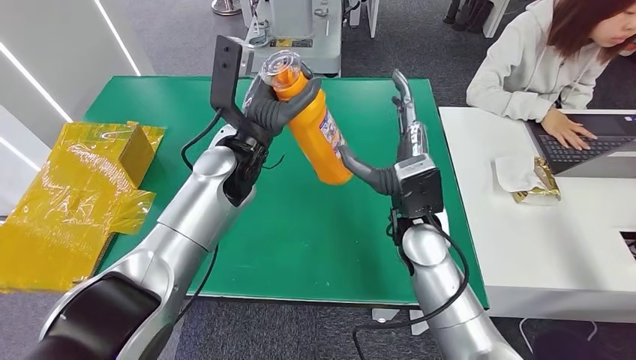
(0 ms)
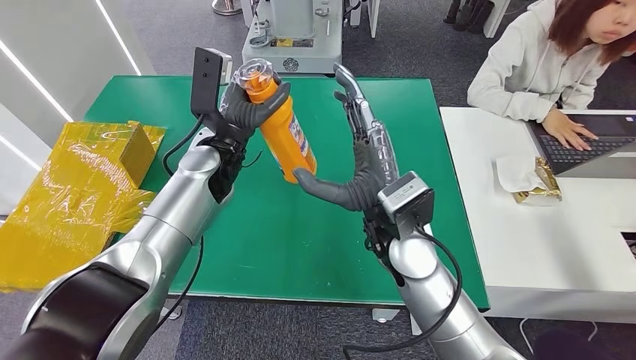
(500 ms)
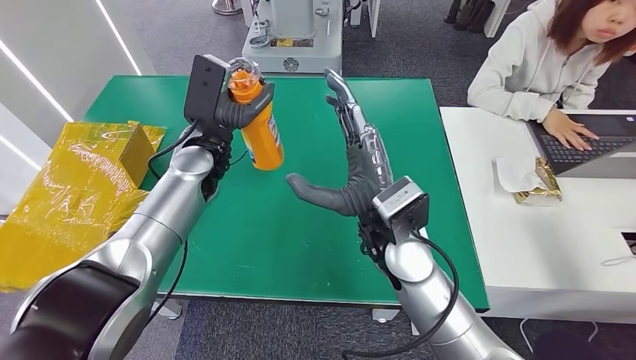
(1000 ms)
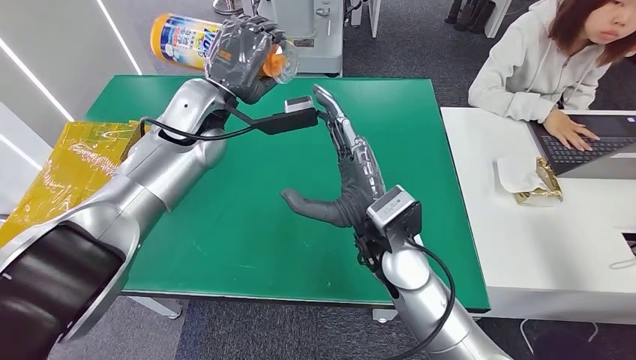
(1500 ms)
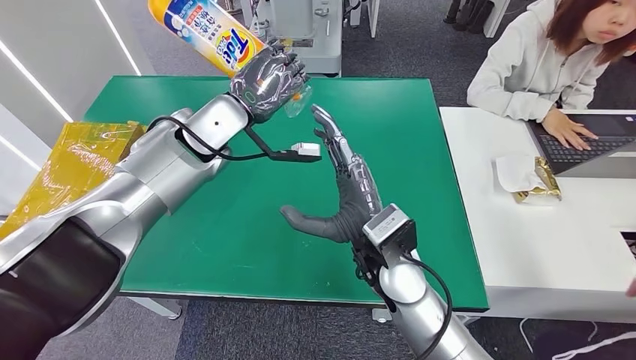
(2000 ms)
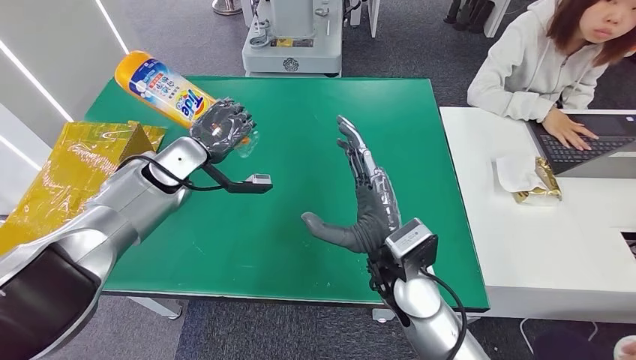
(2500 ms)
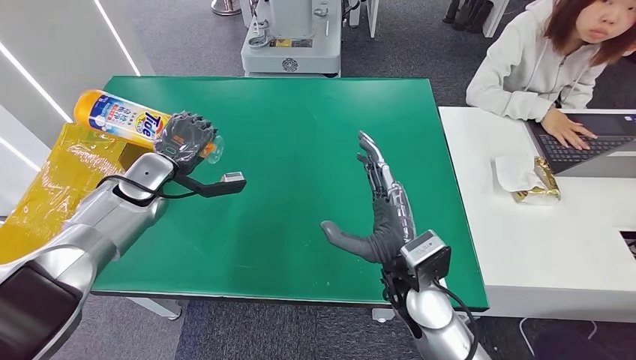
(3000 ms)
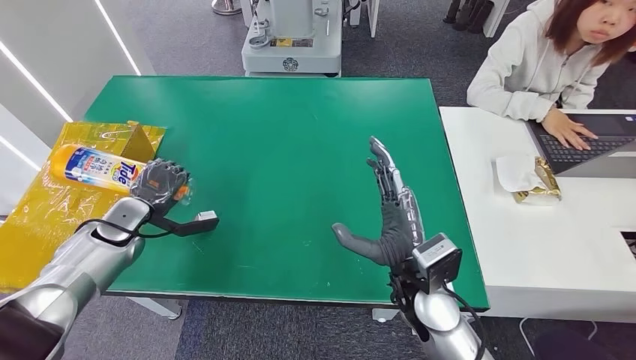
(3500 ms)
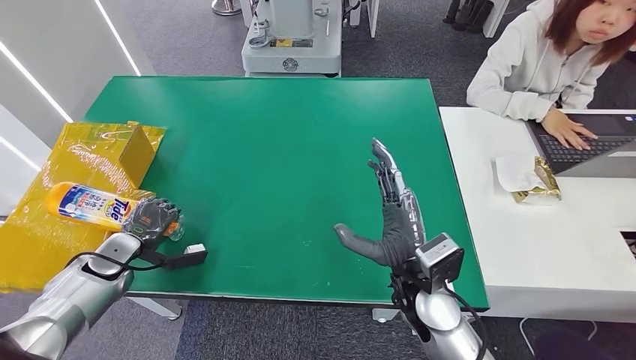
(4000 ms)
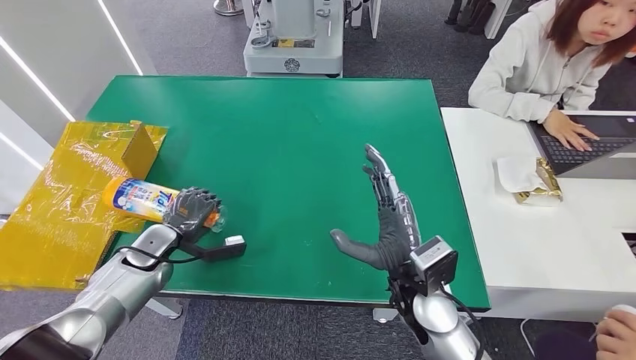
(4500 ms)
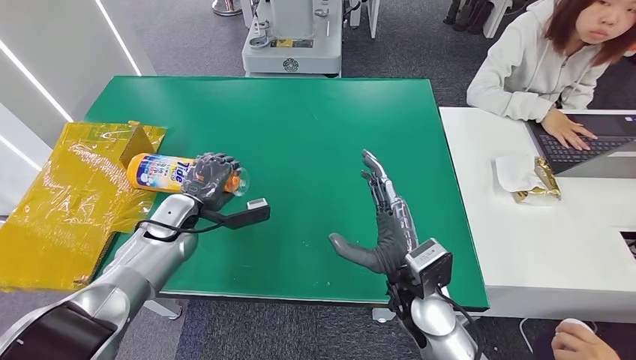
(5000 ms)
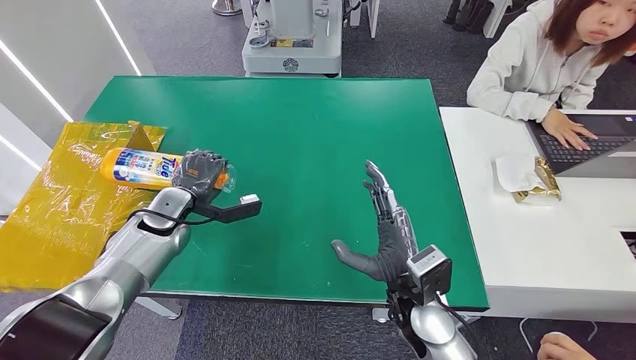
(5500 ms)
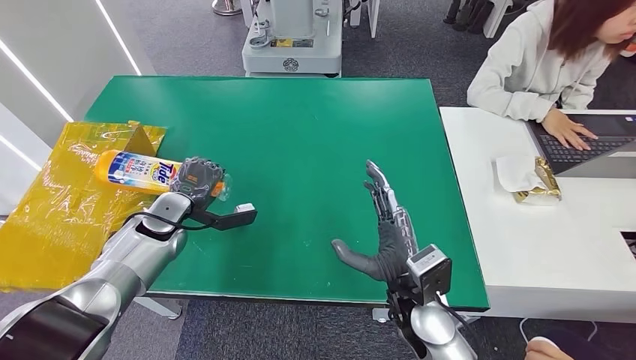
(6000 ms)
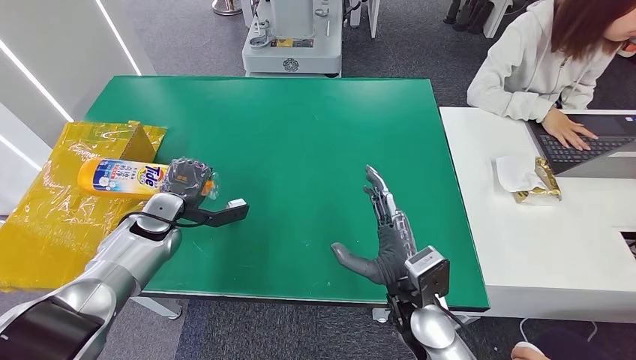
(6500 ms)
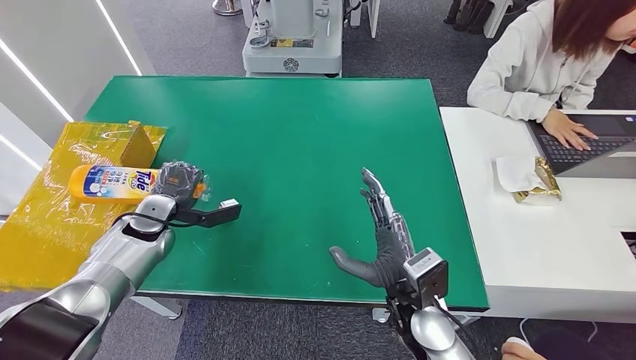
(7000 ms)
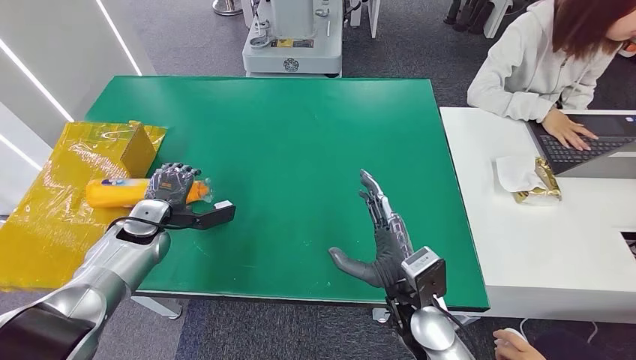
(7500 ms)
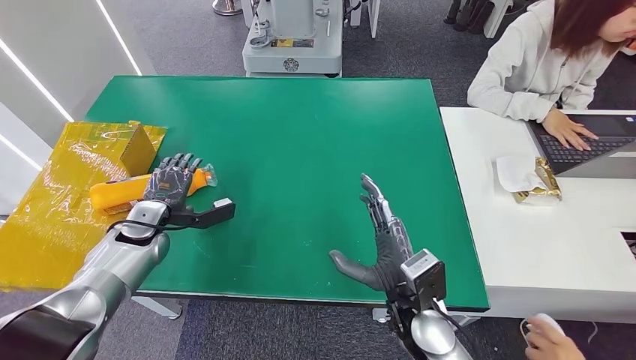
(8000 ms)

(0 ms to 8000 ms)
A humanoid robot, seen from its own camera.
Step, 0 ms - 8000 ms: Turn the bottle to the front side.
4000 ms - 6000 ms: The left hand moves to the right and forward, approximately 15 cm.
6000 ms - 8000 ms: The hands make only small movements.
